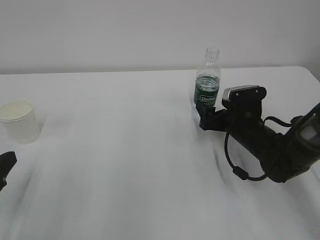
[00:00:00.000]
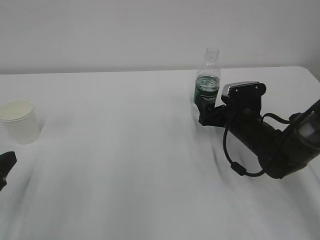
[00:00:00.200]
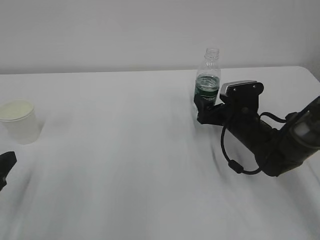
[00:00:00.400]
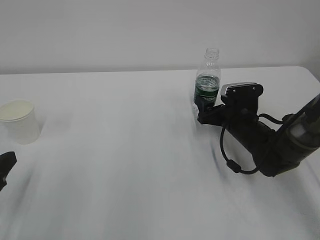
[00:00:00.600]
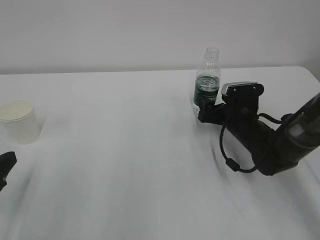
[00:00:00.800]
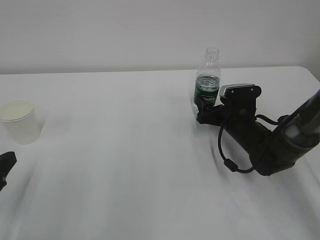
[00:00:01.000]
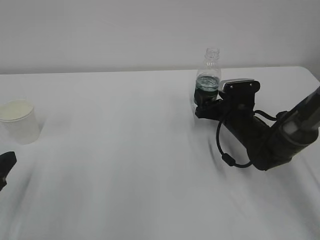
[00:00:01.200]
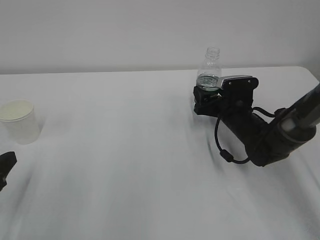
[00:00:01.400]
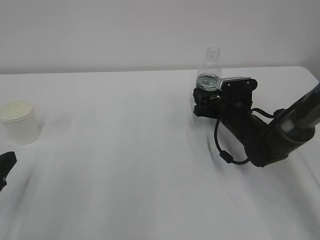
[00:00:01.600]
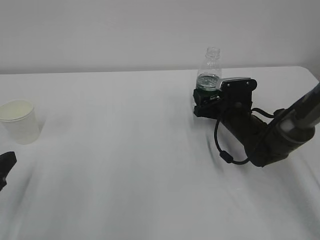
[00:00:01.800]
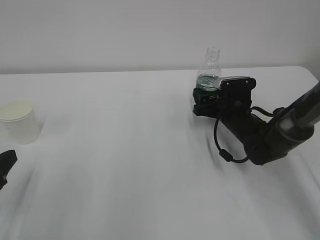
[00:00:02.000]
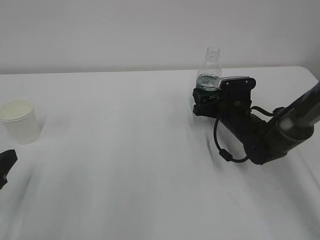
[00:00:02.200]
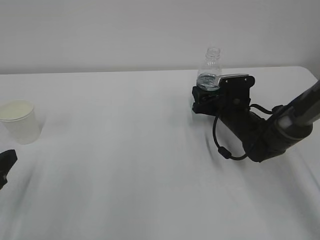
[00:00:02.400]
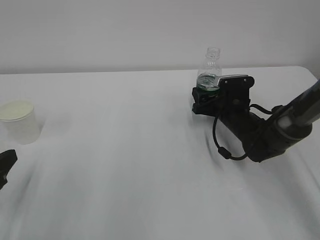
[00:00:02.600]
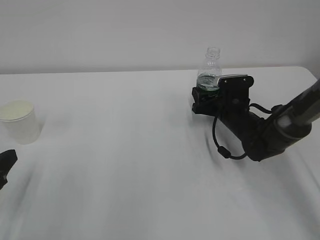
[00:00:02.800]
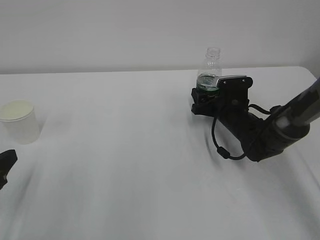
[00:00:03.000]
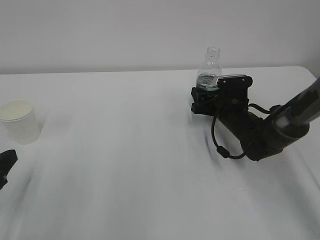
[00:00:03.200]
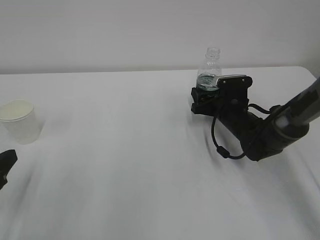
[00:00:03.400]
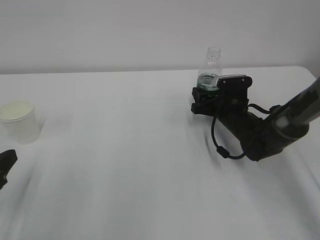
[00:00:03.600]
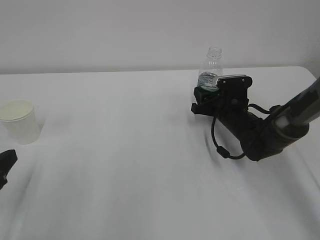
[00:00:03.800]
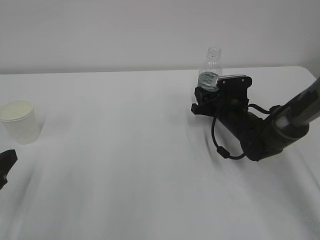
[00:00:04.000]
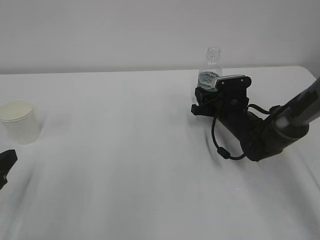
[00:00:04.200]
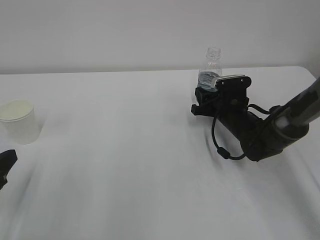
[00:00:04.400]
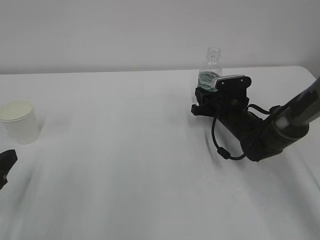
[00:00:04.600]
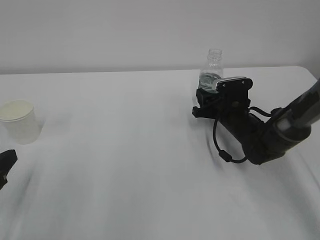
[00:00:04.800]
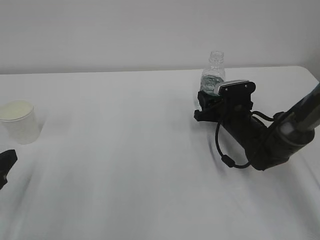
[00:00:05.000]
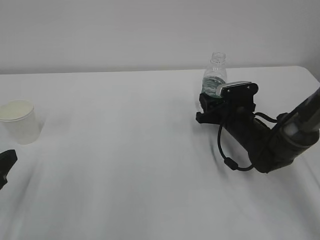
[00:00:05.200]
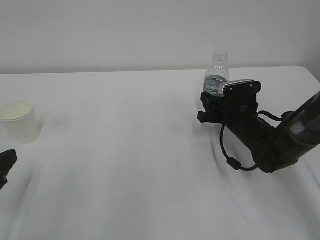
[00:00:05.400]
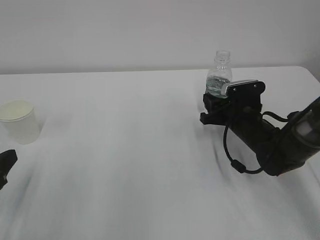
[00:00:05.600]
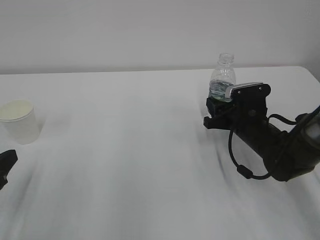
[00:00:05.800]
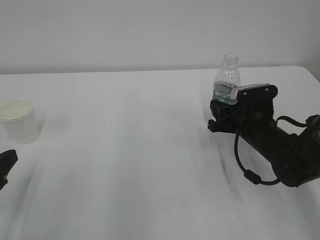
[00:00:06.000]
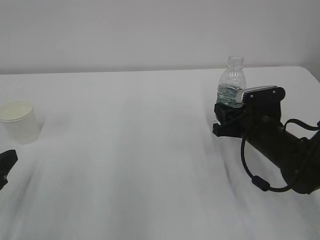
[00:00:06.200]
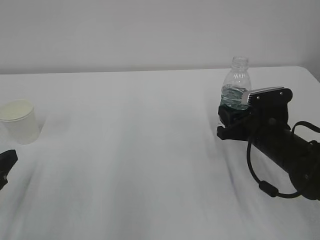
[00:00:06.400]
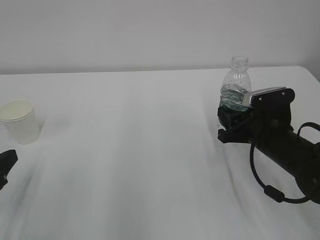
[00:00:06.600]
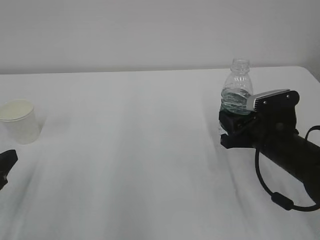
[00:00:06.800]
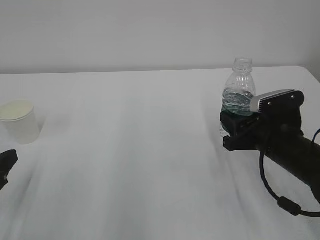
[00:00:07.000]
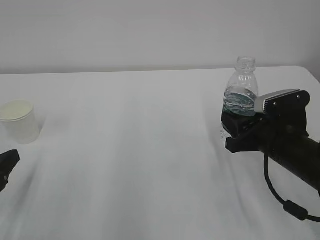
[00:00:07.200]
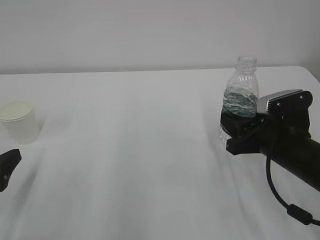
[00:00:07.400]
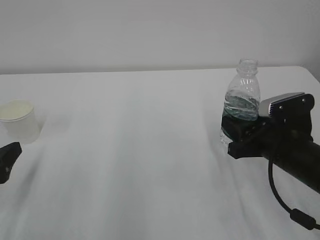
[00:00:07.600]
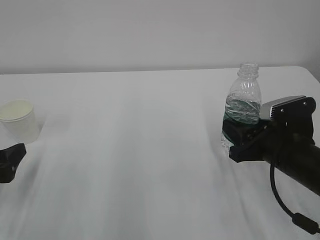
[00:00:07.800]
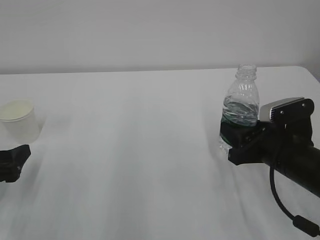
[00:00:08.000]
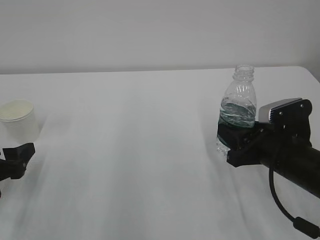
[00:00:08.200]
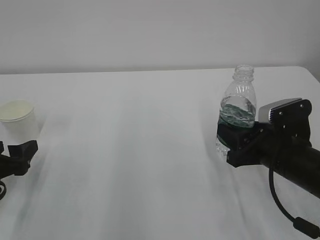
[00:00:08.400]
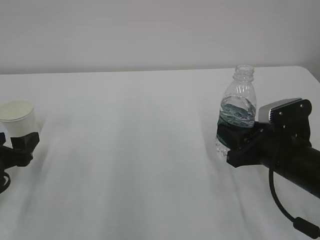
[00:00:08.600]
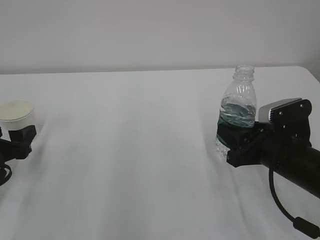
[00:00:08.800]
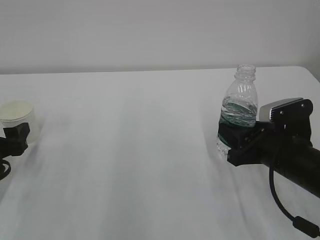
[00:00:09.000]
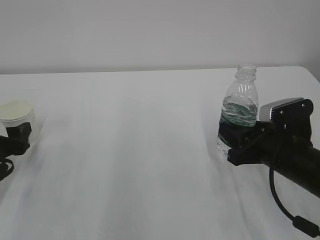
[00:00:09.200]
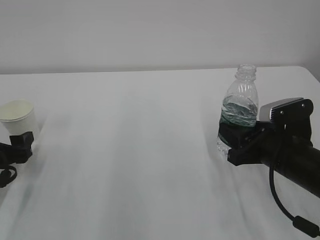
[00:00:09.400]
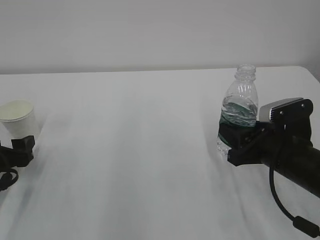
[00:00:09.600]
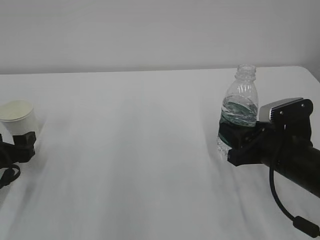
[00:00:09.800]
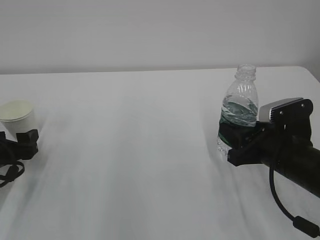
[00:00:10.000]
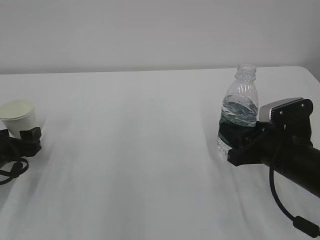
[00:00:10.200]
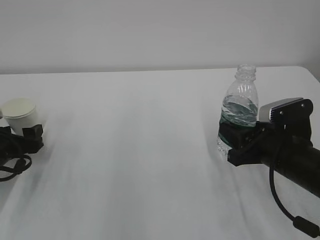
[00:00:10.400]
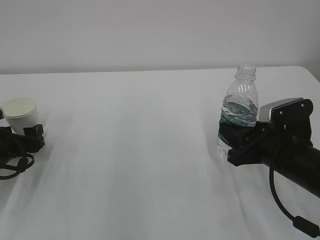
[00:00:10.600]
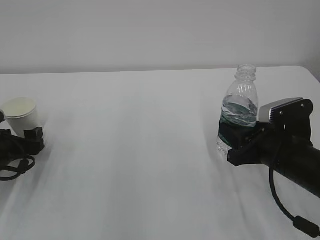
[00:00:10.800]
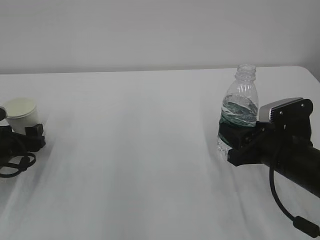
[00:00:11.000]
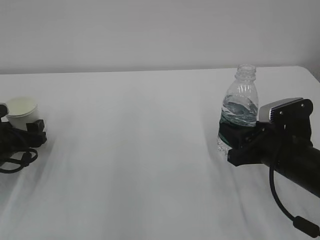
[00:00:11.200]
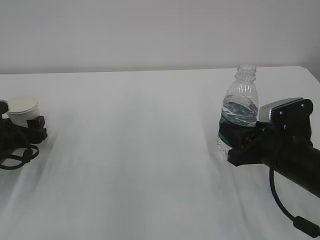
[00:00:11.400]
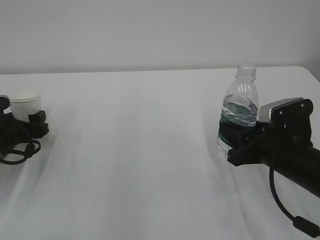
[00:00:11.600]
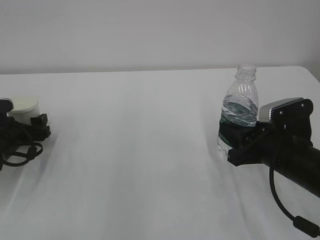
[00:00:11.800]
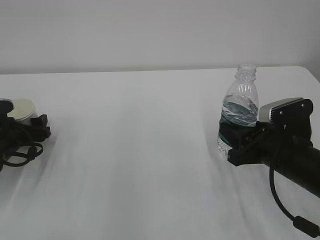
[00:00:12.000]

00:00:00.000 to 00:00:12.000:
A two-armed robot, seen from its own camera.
00:00:00.000 to 00:00:01.600: The grippers make only small movements.
00:00:01.600 to 00:00:03.000: The two grippers keep their place.
00:00:04.400 to 00:00:06.000: The right gripper heads backward, covering some 10 cm.
00:00:06.000 to 00:00:07.600: The left gripper opens. The right gripper heads backward, covering roughly 10 cm.
00:00:07.600 to 00:00:09.000: The left gripper travels forward by approximately 5 cm.
00:00:09.000 to 00:00:10.400: The left gripper changes place by about 5 cm.
00:00:10.400 to 00:00:12.000: The grippers make only small movements.

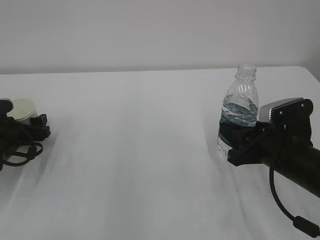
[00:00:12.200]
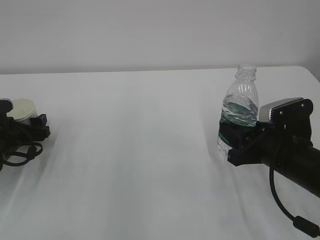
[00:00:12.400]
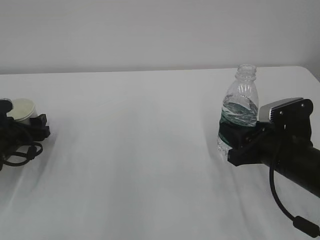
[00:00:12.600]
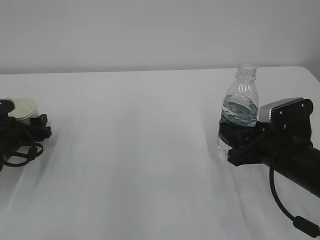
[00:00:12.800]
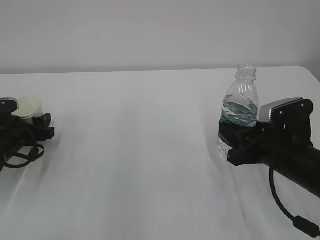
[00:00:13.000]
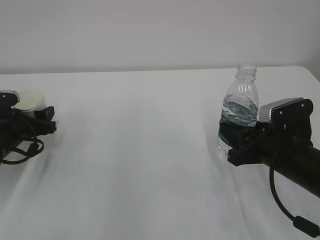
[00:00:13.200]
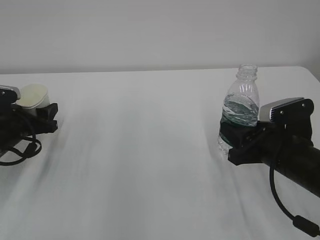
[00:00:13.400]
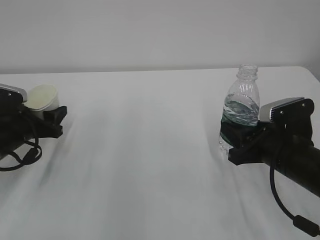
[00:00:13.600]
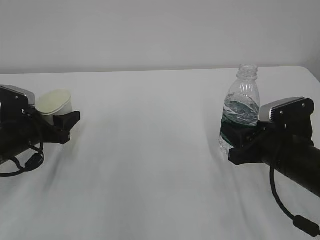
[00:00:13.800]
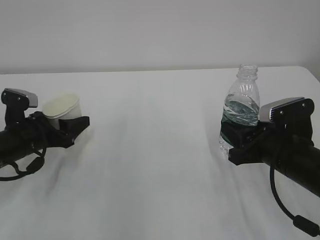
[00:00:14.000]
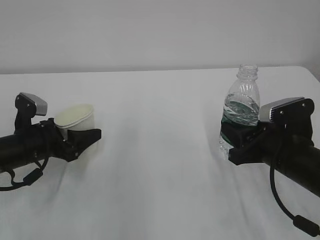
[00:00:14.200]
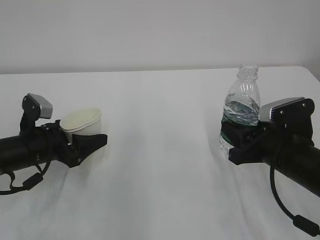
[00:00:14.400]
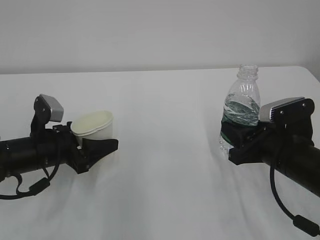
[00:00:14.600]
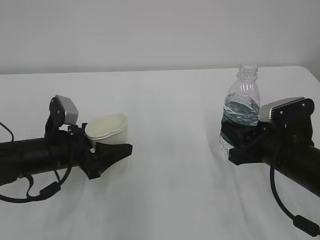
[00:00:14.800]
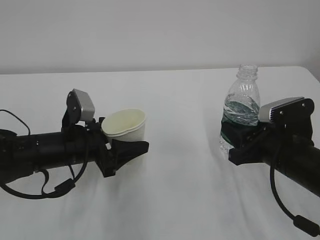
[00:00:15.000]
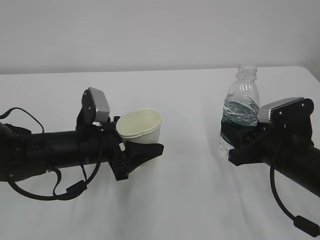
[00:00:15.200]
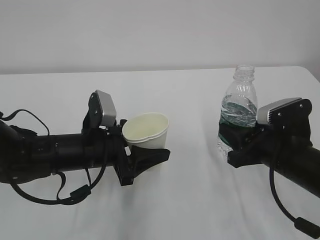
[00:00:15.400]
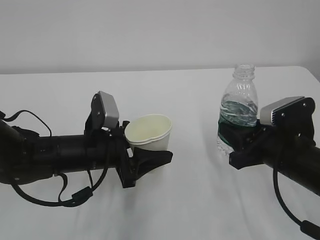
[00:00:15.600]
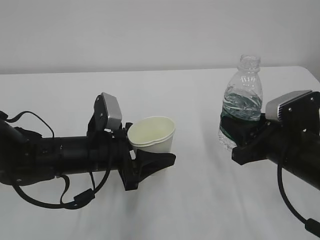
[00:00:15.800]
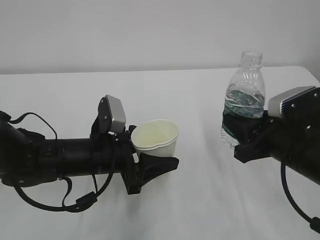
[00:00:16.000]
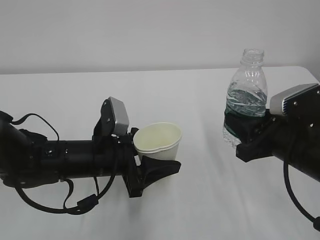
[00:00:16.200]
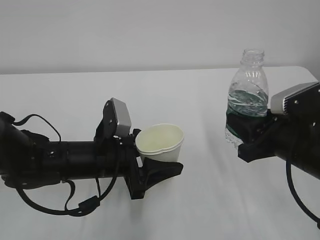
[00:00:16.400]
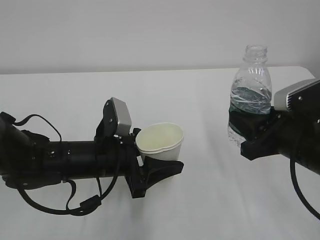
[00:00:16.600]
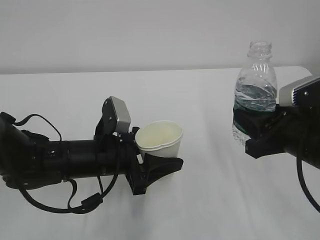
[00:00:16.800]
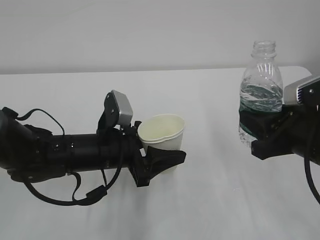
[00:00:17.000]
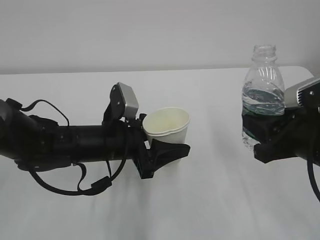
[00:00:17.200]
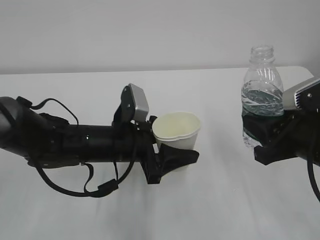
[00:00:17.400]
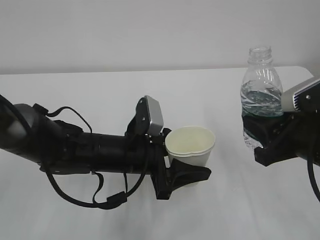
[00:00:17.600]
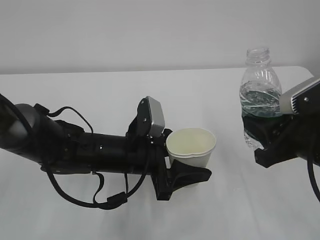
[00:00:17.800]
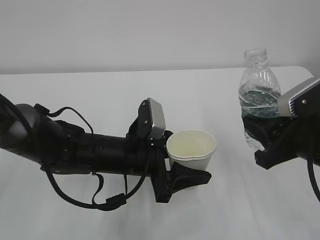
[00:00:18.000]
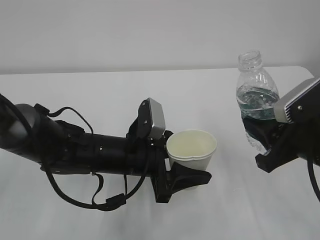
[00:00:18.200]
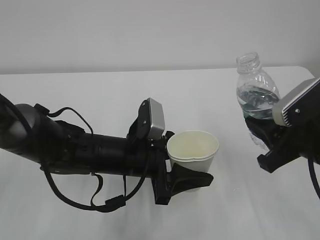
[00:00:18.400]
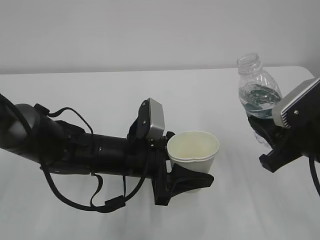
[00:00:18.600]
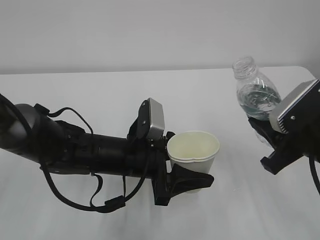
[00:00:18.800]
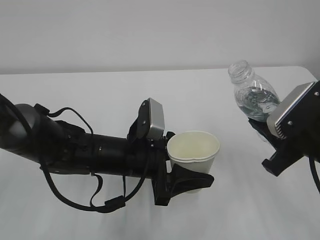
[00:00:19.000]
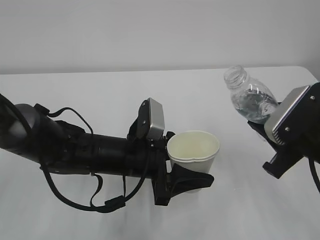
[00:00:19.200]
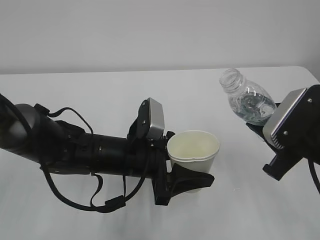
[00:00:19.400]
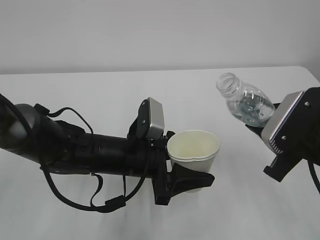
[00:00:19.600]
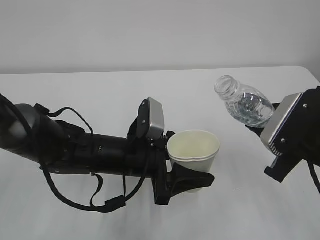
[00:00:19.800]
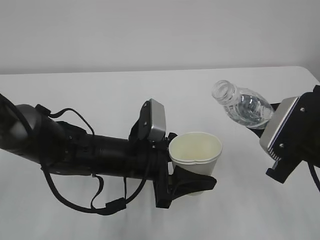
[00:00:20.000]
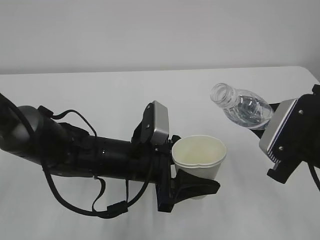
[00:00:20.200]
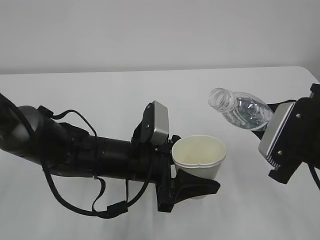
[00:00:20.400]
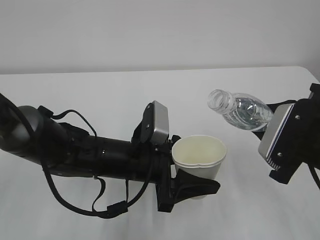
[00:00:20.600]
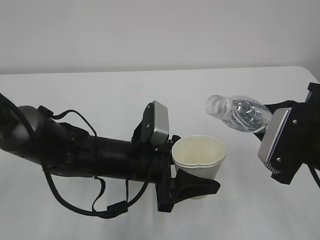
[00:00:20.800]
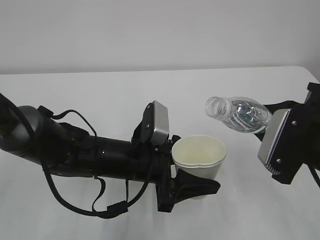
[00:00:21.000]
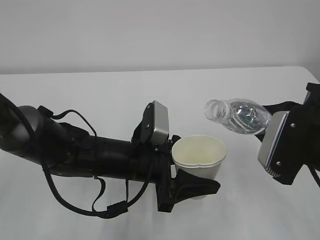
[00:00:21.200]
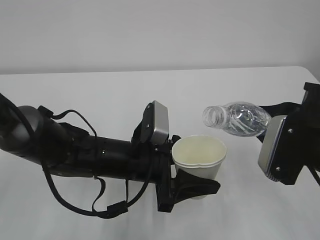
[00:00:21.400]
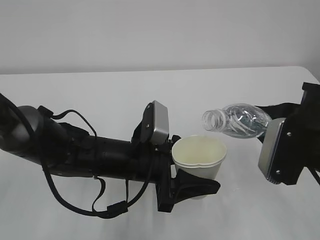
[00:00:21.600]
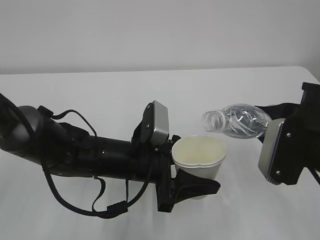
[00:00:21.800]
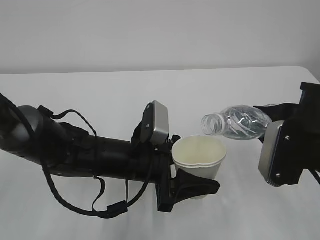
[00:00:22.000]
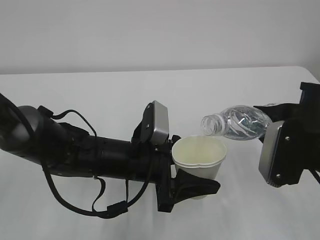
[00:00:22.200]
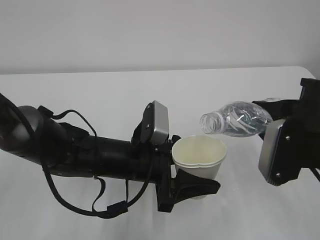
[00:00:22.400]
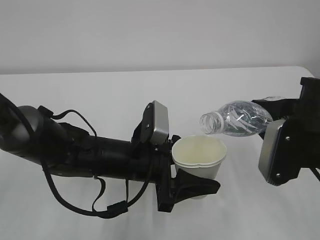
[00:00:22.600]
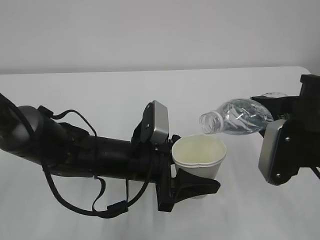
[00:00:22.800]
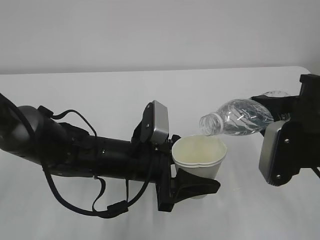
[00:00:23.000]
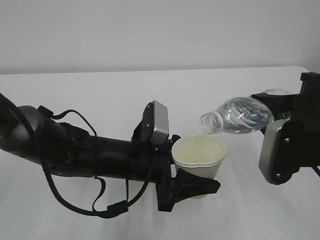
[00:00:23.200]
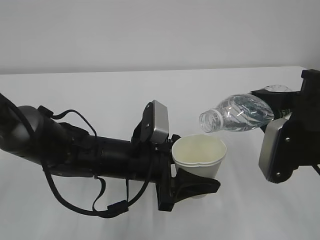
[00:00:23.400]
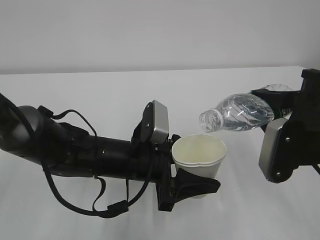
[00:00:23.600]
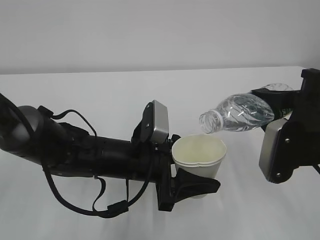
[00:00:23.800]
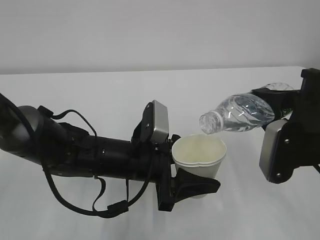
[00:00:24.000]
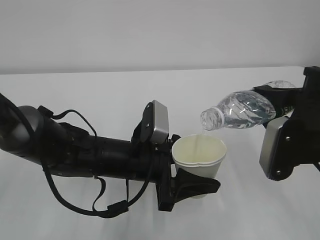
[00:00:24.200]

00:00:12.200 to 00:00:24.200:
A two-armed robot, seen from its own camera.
00:00:12.200 to 00:00:13.800: The left gripper changes place by about 5 cm, and closes its fingers.
00:00:13.800 to 00:00:15.200: The left gripper shifts roughly 15 cm to the right.
00:00:15.200 to 00:00:16.600: The right gripper ends up roughly 5 cm from where it was.
00:00:16.600 to 00:00:18.200: The grippers move only a little.
00:00:19.800 to 00:00:21.200: The grippers make only small movements.
00:00:21.200 to 00:00:22.600: The grippers stay close to where they were, moving slightly.
00:00:22.600 to 00:00:24.200: The grippers move only a little.
